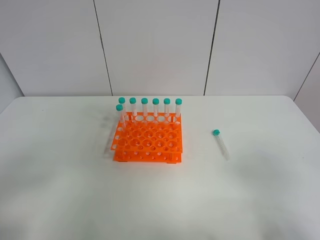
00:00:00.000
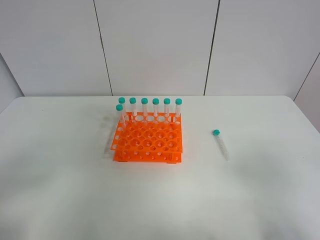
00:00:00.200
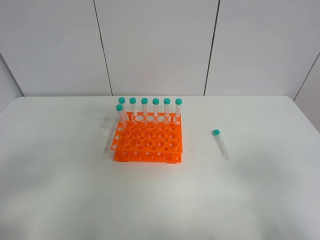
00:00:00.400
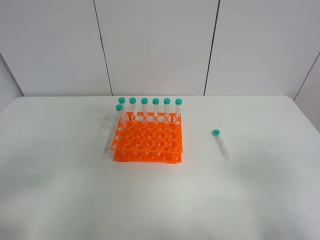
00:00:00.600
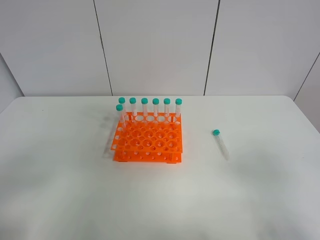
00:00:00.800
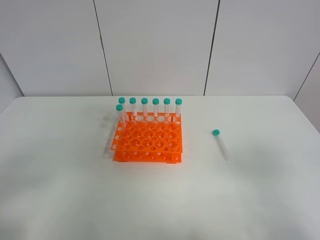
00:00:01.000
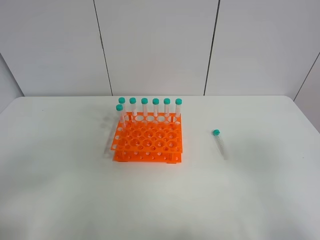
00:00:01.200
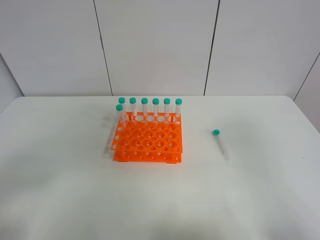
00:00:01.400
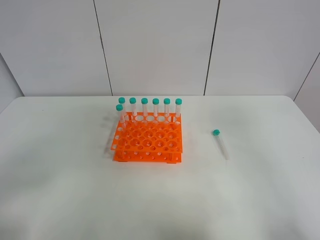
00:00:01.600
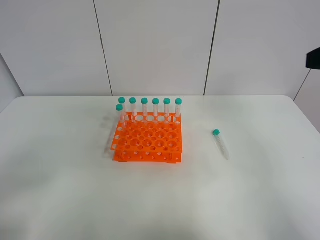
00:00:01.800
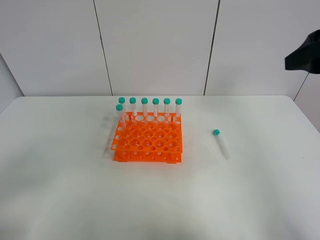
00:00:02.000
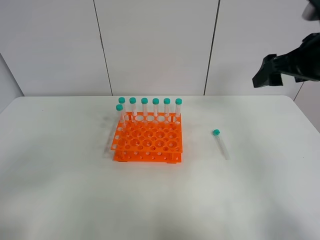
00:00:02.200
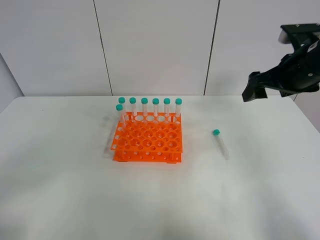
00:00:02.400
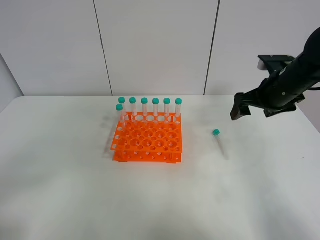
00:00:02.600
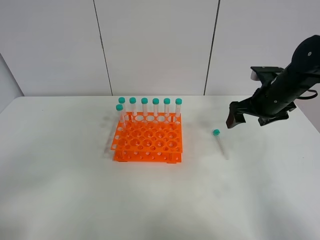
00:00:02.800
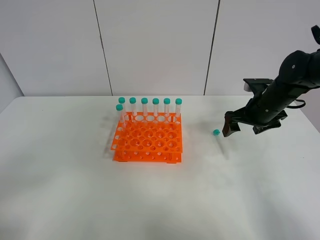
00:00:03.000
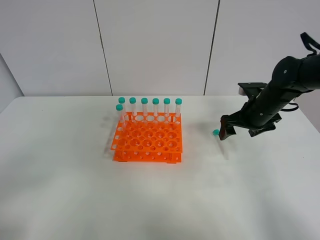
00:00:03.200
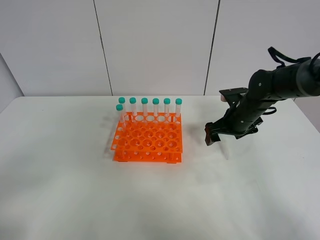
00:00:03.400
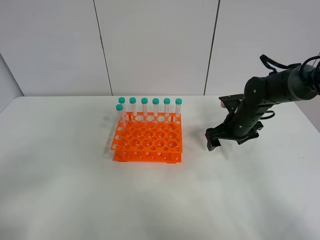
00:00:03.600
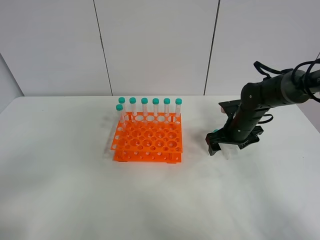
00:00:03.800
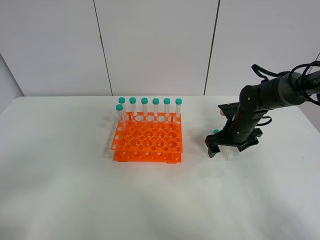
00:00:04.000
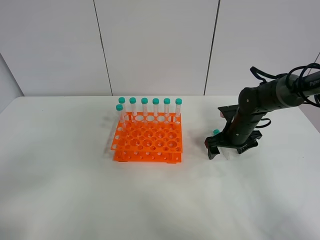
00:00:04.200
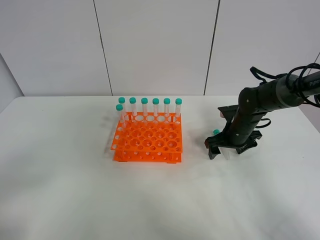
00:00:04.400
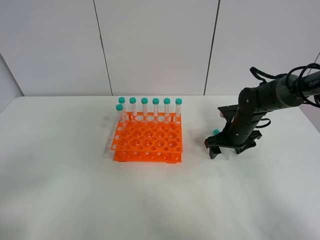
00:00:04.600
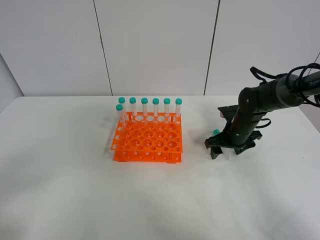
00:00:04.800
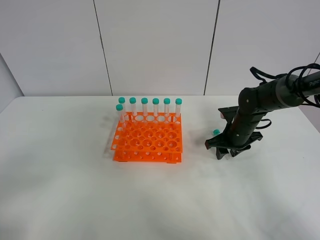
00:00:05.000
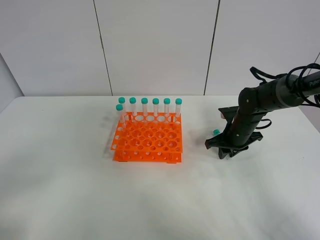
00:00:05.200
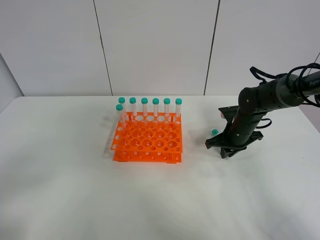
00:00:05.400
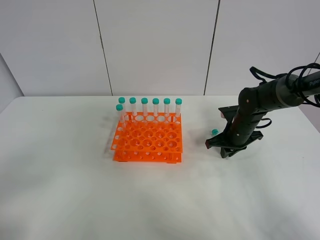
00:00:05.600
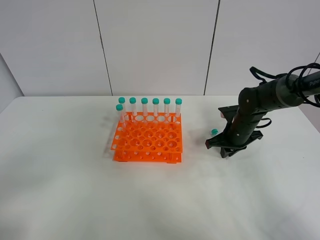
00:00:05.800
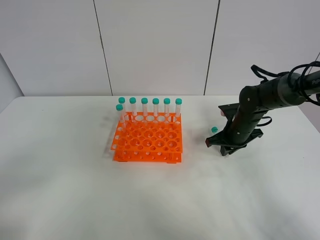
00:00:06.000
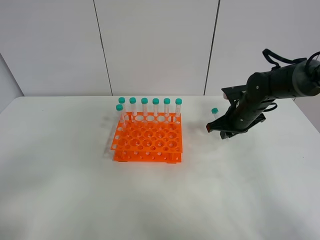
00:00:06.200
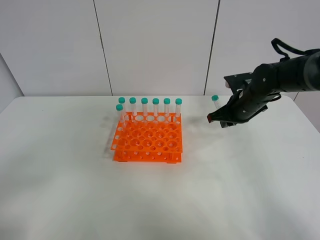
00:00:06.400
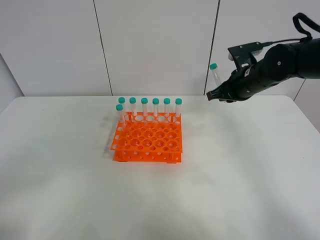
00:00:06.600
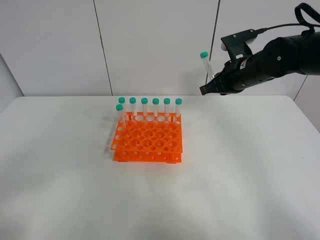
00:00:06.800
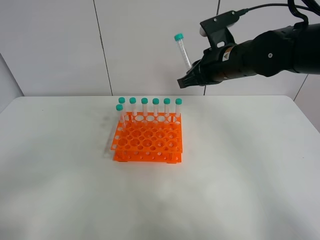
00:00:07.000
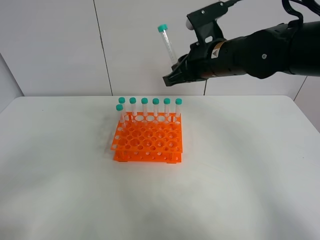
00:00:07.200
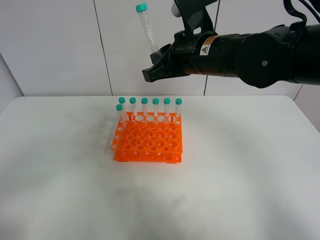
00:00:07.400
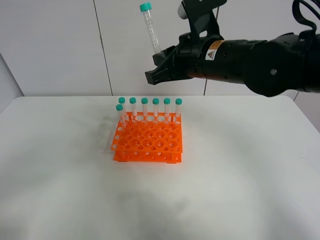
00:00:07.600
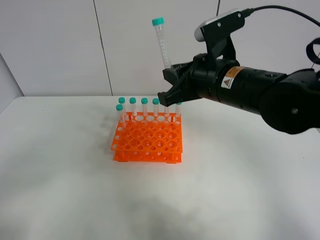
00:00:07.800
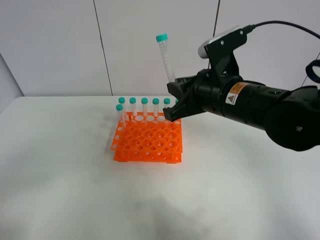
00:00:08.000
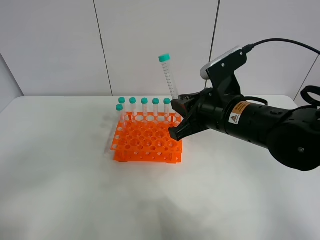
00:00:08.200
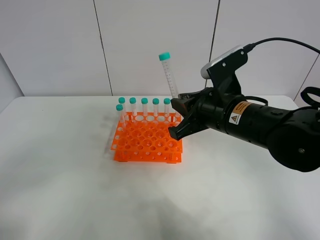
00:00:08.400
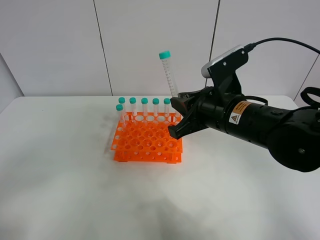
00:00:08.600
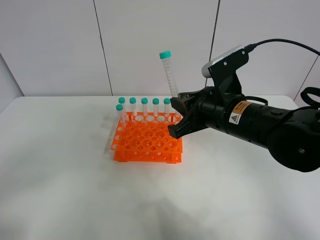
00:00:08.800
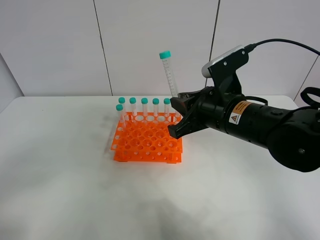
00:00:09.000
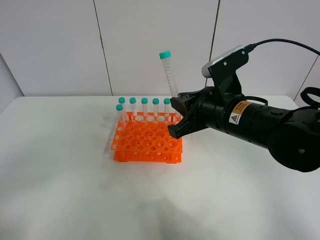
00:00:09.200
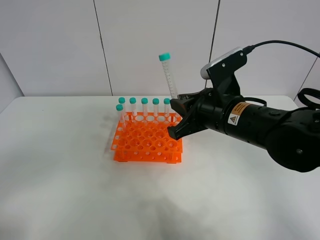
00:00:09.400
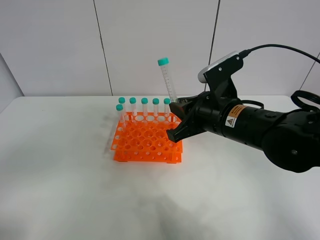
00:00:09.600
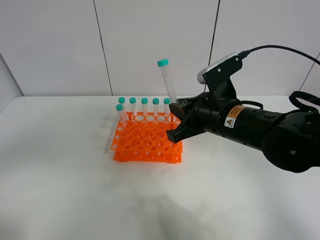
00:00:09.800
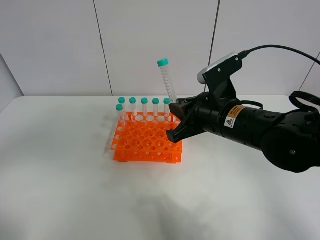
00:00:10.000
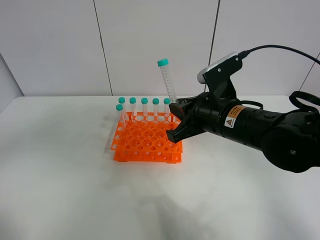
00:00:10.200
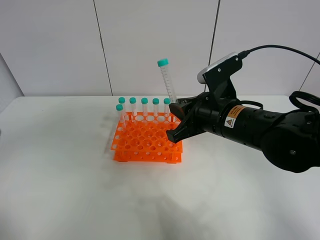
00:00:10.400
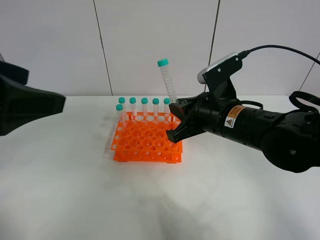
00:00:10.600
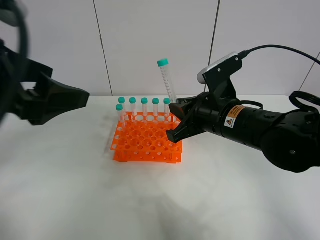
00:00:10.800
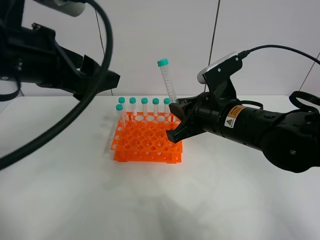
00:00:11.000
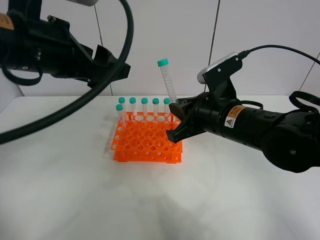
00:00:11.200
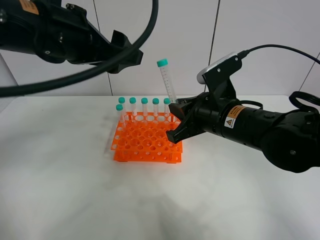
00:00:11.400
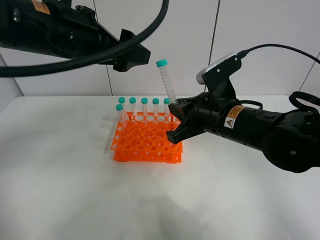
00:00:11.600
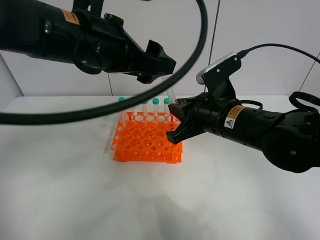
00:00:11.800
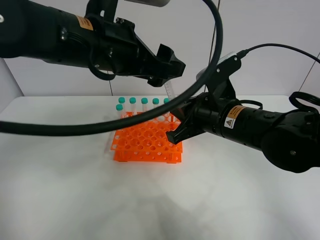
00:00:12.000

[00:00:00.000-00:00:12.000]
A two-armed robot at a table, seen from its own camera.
Task of the whole recording: Put the test tube on the table back onto the test tube rack.
Step, 00:00:00.000 to 00:00:05.600: Pick up the test tube with the right gripper.
00:00:00.000 to 00:00:01.600: The right gripper goes approximately 15 cm upward and forward.
00:00:01.600 to 00:00:03.000: The right gripper heads forward and downward, covering approximately 35 cm.
00:00:03.000 to 00:00:04.400: The right gripper moves downward, roughly 10 cm.
00:00:04.400 to 00:00:06.000: The right gripper closes up.
00:00:06.000 to 00:00:07.600: The right gripper moves upward and to the left, approximately 25 cm.
00:00:07.600 to 00:00:09.000: The right gripper goes about 10 cm downward and backward.
00:00:09.000 to 00:00:10.400: The left gripper is displaced upward and forward by roughly 15 cm.
00:00:10.400 to 00:00:12.000: The left gripper is displaced forward and to the right by roughly 25 cm.

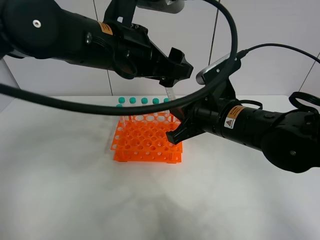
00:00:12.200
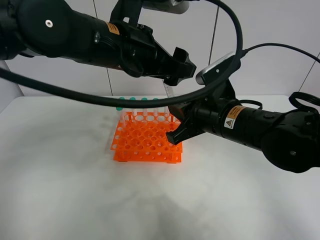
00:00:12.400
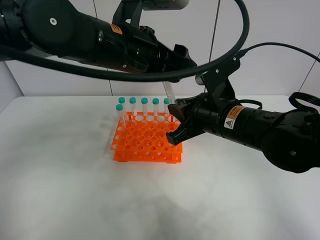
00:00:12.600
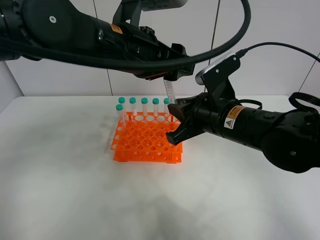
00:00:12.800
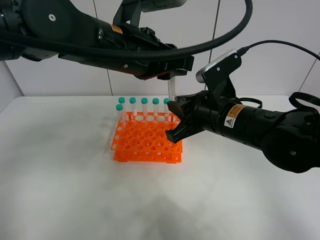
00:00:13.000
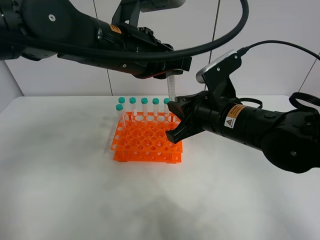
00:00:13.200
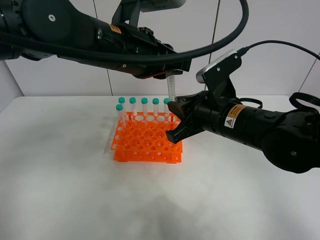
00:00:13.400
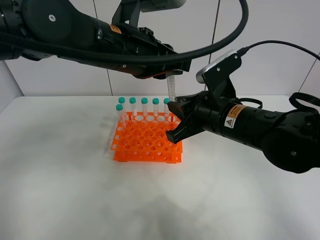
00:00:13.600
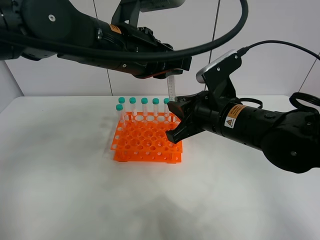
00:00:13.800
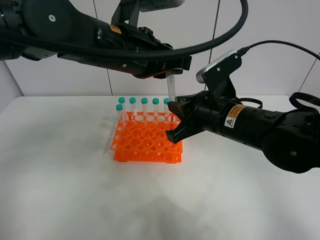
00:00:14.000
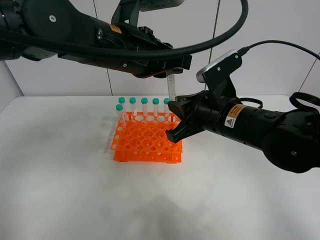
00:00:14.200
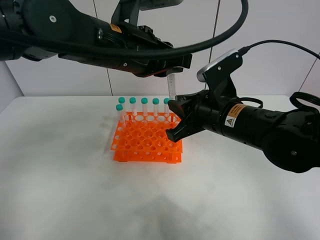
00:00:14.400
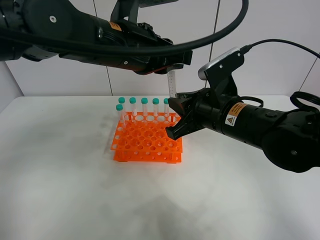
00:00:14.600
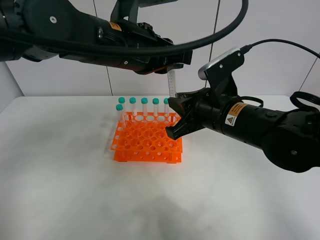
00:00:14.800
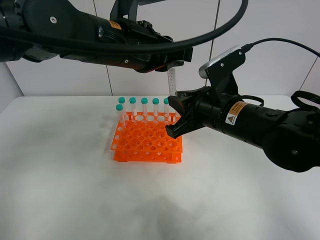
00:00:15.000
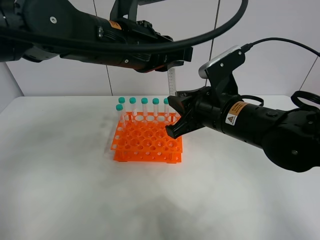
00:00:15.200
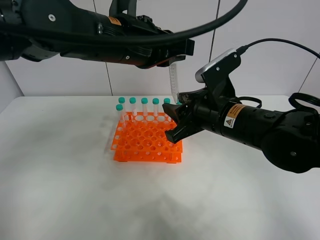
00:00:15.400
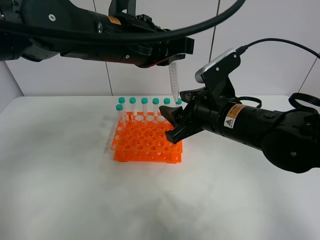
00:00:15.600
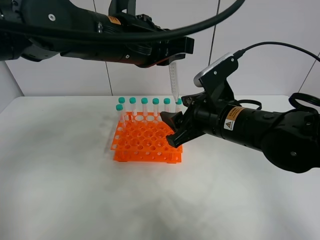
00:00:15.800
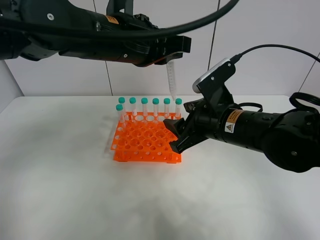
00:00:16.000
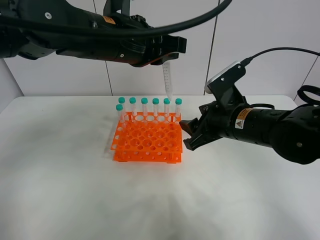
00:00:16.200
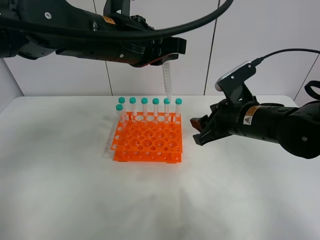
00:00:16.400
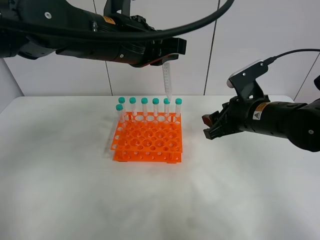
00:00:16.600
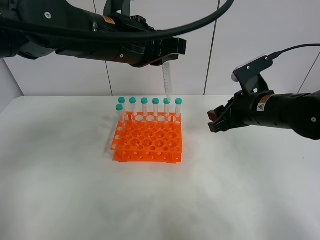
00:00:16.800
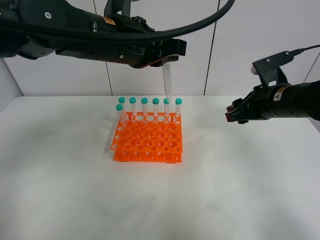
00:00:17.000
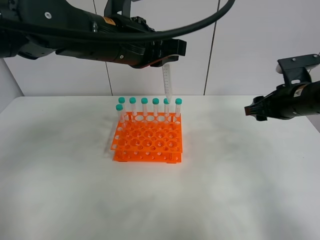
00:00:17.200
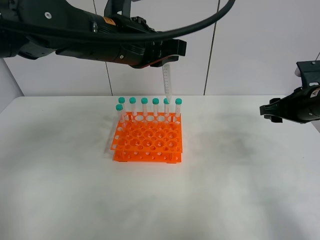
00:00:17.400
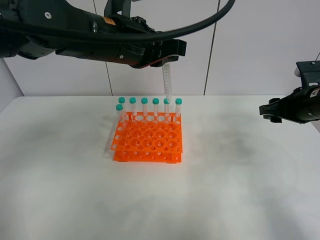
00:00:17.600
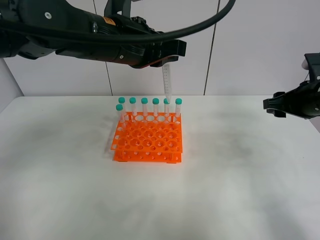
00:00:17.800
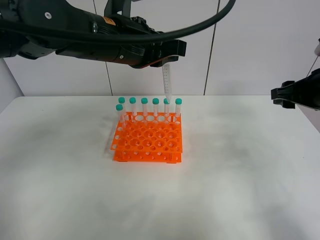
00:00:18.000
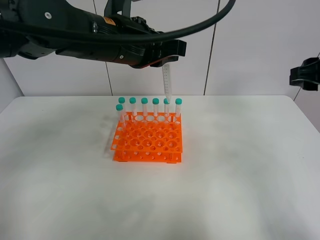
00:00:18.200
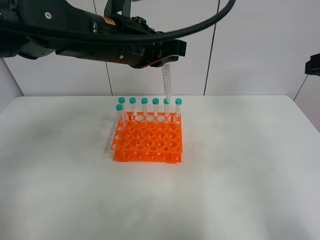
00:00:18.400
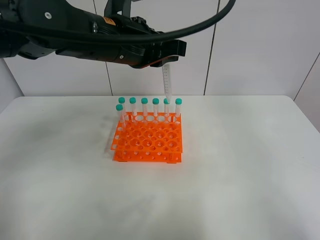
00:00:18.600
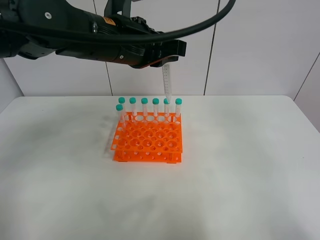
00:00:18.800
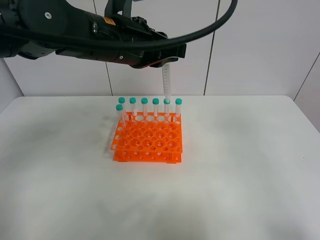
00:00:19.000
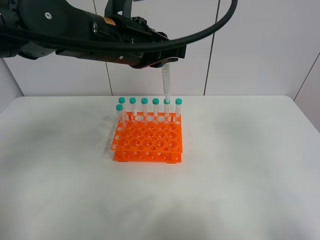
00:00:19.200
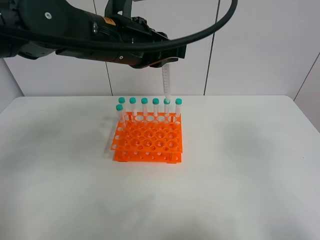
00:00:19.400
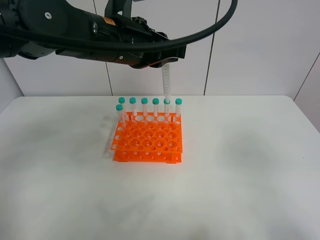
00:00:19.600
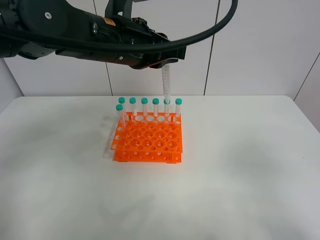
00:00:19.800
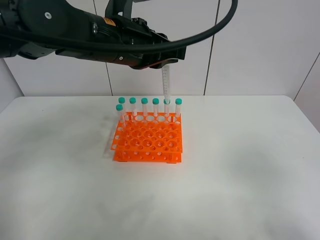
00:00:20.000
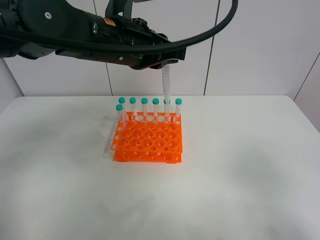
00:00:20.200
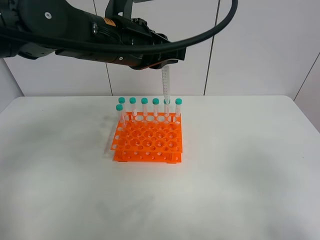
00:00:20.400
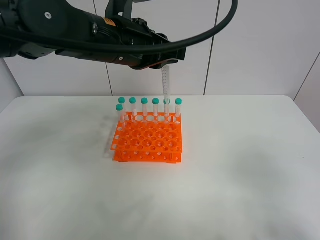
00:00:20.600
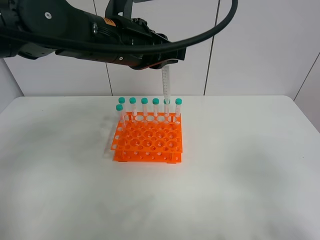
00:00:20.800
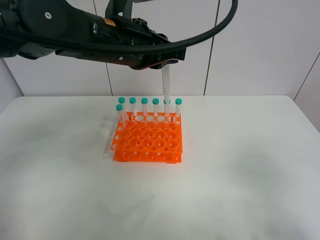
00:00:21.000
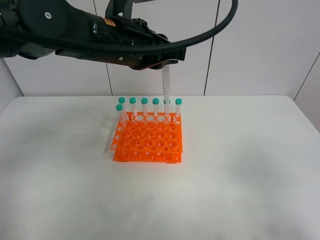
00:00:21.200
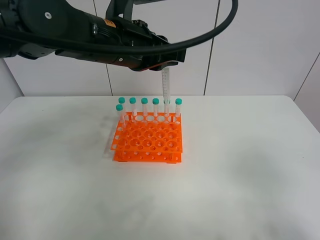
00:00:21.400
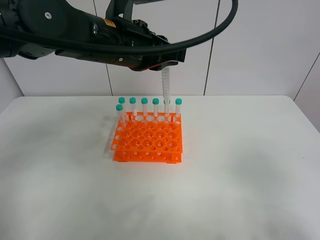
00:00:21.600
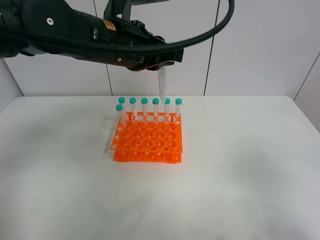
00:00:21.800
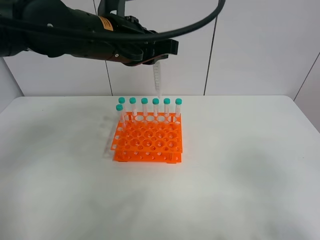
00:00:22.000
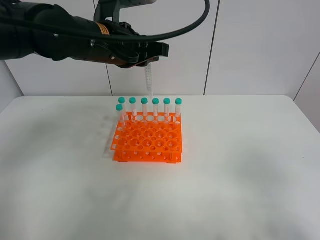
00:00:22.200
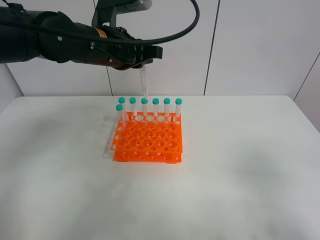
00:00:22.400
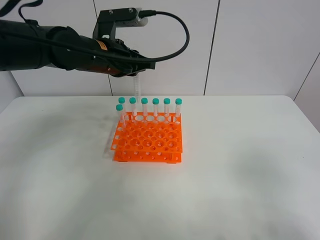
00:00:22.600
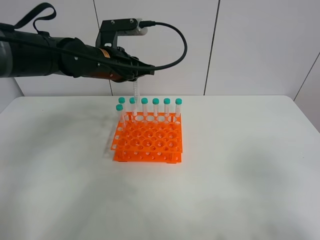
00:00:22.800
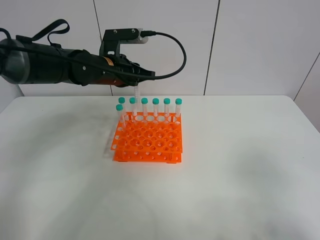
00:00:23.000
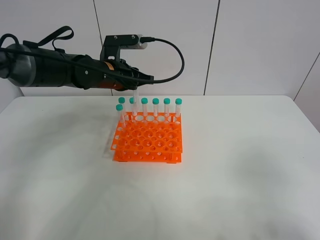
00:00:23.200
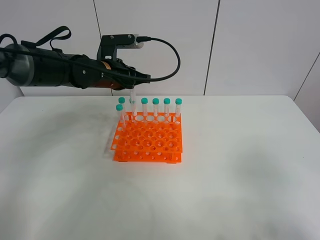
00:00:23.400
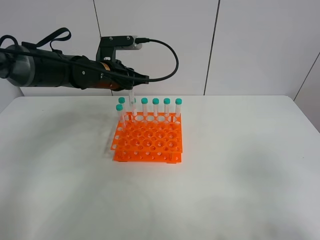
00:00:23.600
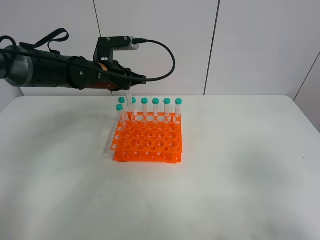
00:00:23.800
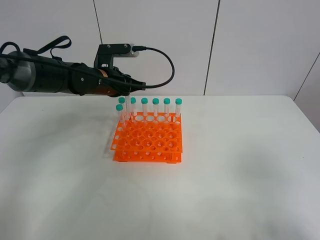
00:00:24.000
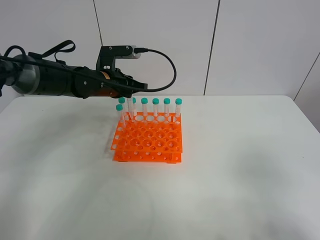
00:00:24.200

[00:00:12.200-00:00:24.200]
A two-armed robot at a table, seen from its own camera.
Task of the whole recording: Put the test tube on the table back onto the test tube rack.
Step, 00:00:12.200 to 00:00:15.400: Move the test tube from the right gripper to the left gripper.
00:00:12.200 to 00:00:13.800: The left gripper closes its fingers.
00:00:13.800 to 00:00:15.200: The grippers make only small movements.
00:00:15.200 to 00:00:16.600: The right gripper goes about 10 cm to the right, and opens.
00:00:16.600 to 00:00:18.200: The right gripper moves upward and to the right, about 15 cm.
00:00:18.200 to 00:00:19.800: The right gripper is displaced backward by about 25 cm.
00:00:19.800 to 00:00:21.200: The grippers stay close to where they were, moving slightly.
00:00:21.200 to 00:00:22.600: The left gripper moves forward and downward, about 10 cm.
00:00:22.600 to 00:00:24.200: The left gripper travels downward by roughly 5 cm.
